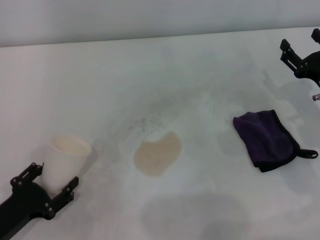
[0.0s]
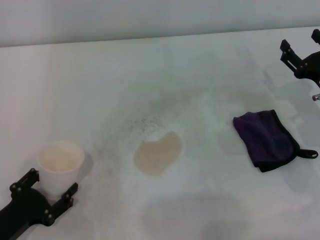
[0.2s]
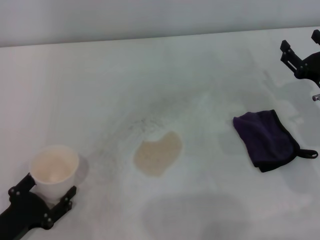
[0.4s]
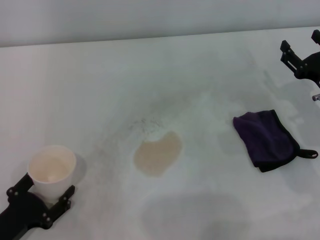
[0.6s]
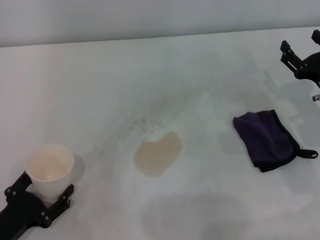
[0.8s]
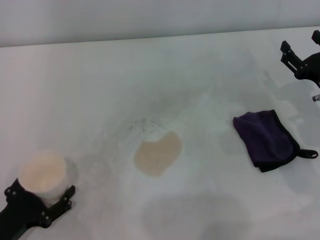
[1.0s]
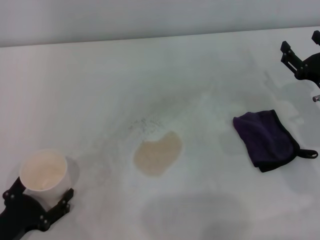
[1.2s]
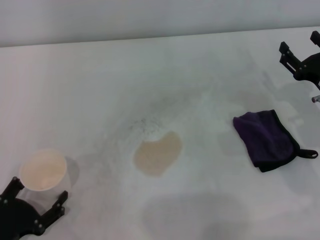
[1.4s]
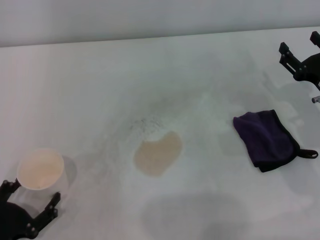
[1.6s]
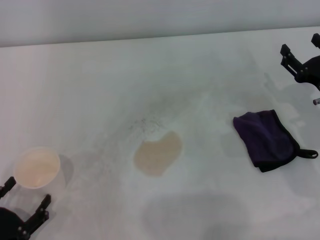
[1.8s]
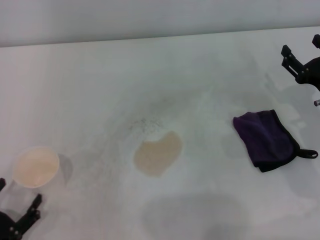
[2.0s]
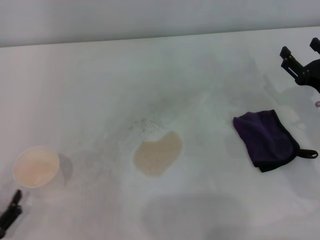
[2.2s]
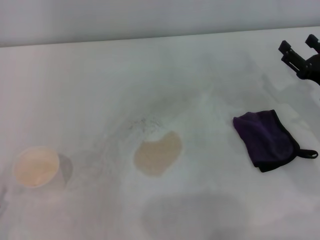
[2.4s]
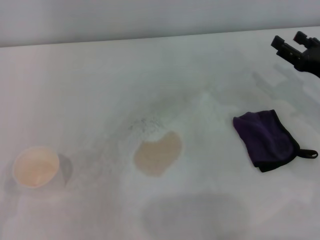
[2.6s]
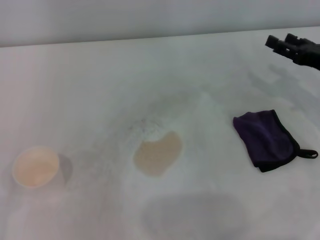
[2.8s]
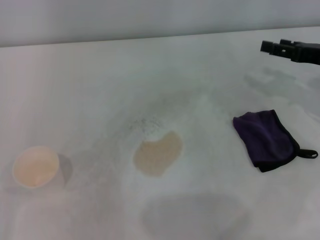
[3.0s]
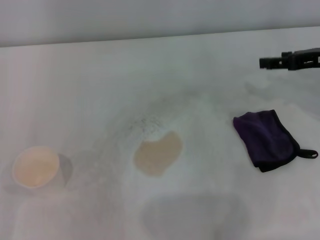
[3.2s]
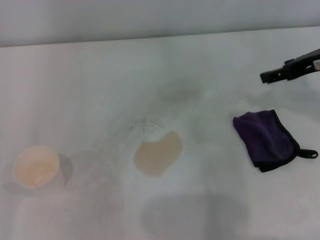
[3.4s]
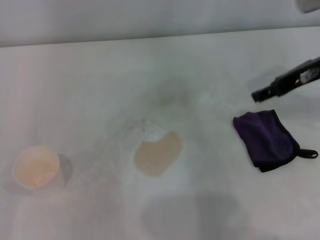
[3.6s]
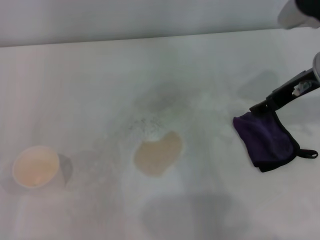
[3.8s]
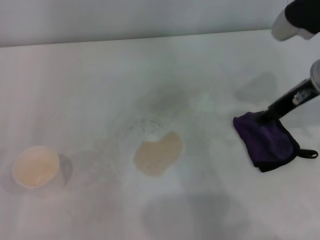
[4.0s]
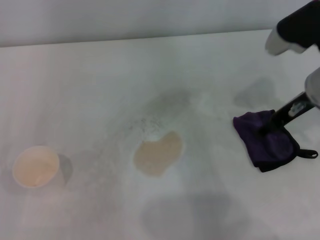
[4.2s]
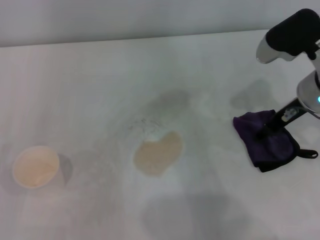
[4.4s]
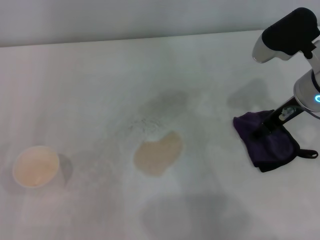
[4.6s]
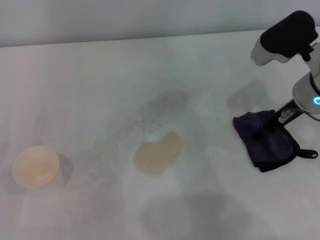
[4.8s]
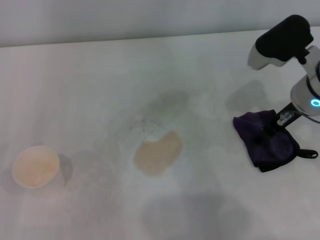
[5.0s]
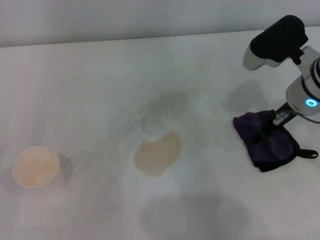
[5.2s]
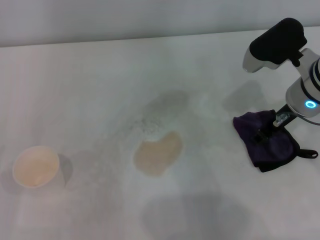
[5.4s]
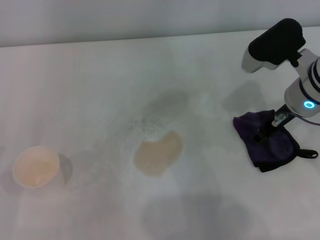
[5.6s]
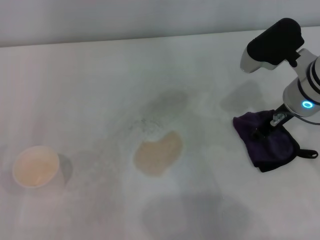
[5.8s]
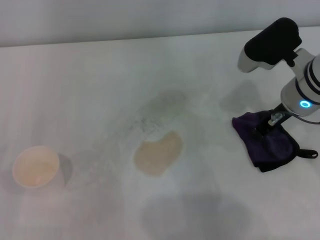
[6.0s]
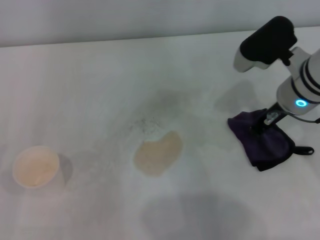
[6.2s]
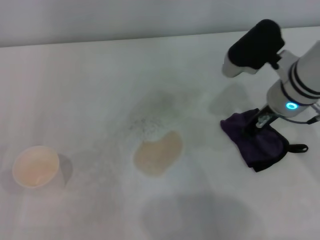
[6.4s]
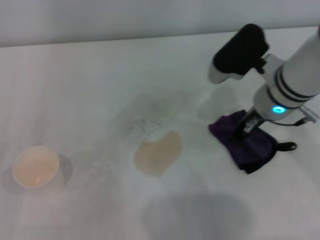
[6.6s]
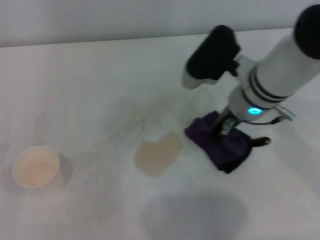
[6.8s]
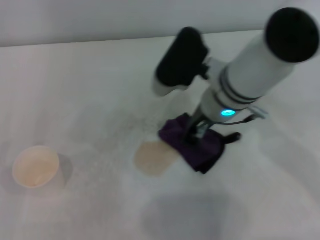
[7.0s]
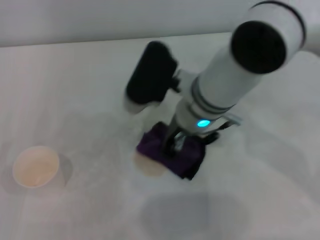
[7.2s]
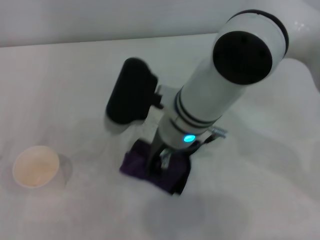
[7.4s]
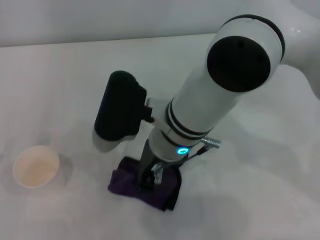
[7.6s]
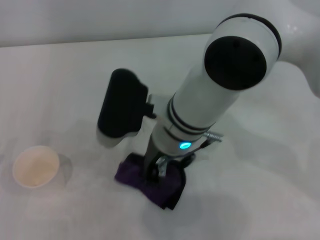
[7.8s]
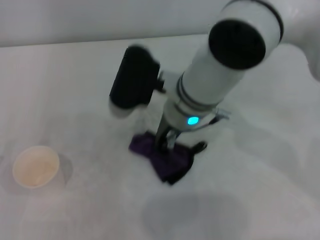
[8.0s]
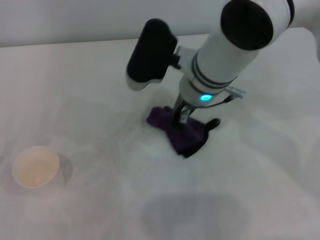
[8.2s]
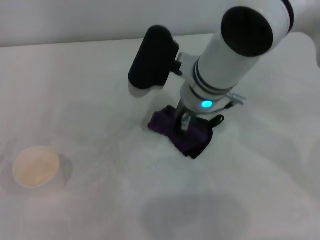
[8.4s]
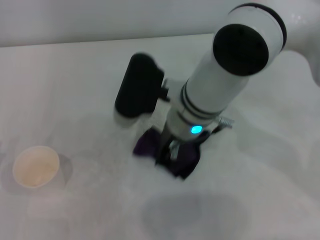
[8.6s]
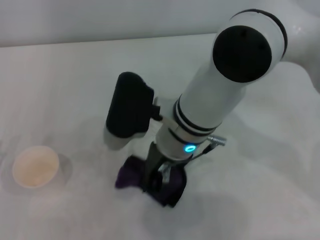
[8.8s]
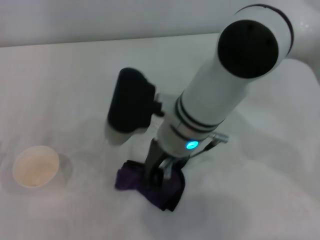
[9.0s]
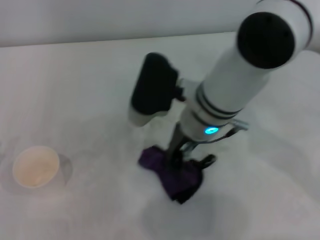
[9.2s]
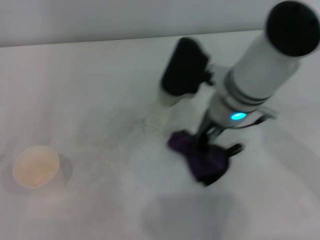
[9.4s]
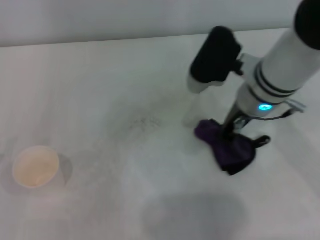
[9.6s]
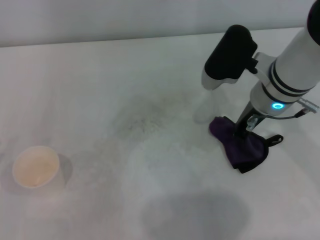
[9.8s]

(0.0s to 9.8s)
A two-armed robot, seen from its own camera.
Step, 1.2s - 6.0s: Grasp the rag with the right gripper.
Step, 6.2s - 9.8s: Wipe the stains off the table with the right gripper.
0.0s - 1.4s: The left gripper opens its fingers.
1.4s - 2.8s: The left gripper is displaced to the left by some 5 cm, while the right gripper changes place by approximately 5 cm.
2.8s - 4.2s: The right gripper heads to the left and upward, covering roughly 10 cm.
4.2s - 5.6s: The right gripper closes its fingers.
5.6s - 7.0s: The right gripper moves to the left, roughly 10 cm, and closes.
8.4s - 9.8s: The right gripper moves to the right, roughly 10 cm.

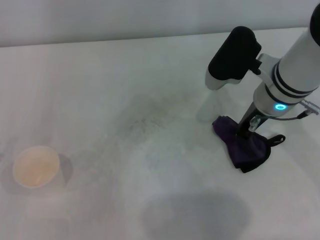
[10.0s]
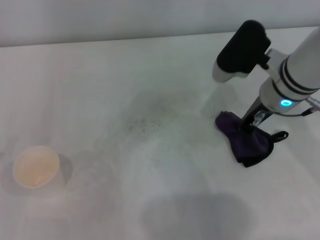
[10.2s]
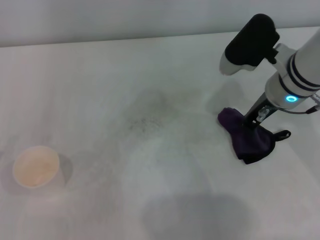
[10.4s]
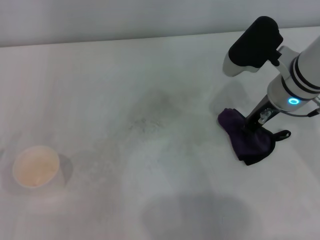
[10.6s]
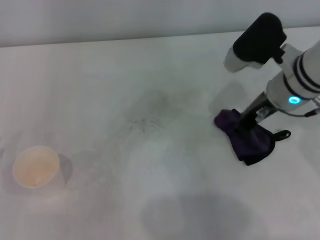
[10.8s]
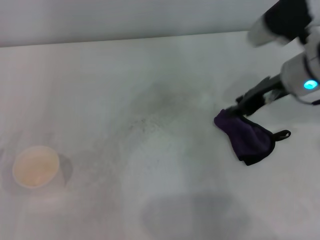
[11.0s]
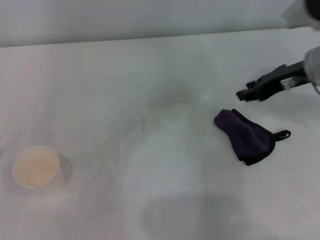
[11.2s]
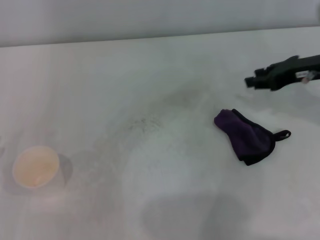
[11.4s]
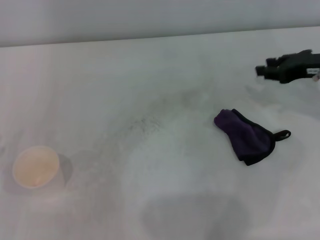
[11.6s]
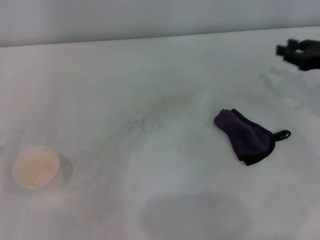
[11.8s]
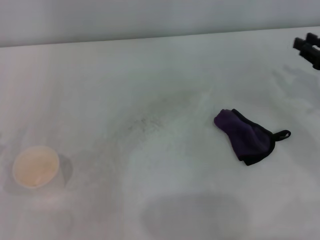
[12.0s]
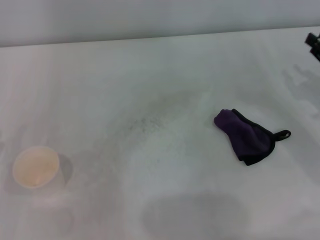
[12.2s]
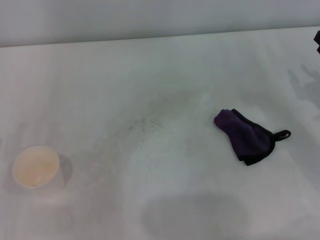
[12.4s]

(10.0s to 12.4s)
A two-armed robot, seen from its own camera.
Step, 10.0s - 10.6s: Place the rag on the table with the right gripper.
10.0s - 11.2s: The right gripper travels to the right by some 10 cm, and opens up.
11.2s - 12.4s: The right gripper travels to the right, downward and backward by roughly 15 cm.

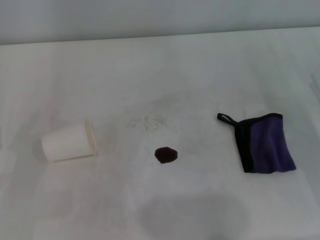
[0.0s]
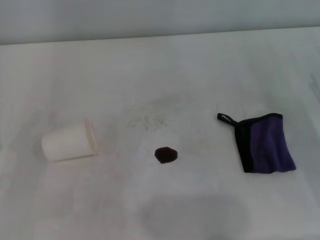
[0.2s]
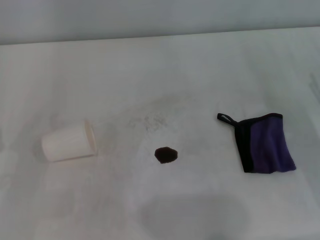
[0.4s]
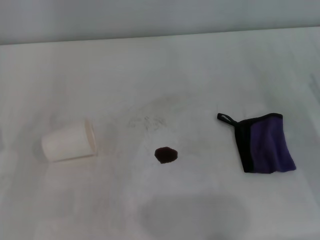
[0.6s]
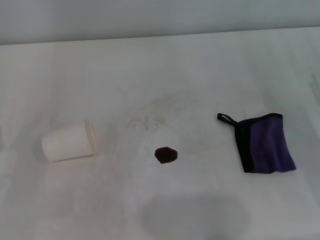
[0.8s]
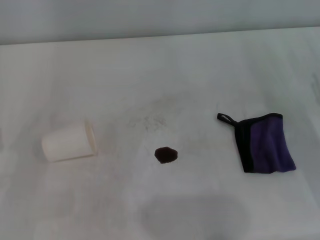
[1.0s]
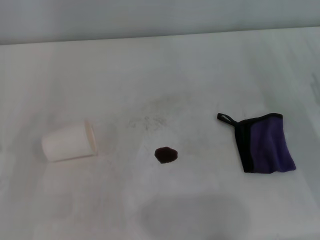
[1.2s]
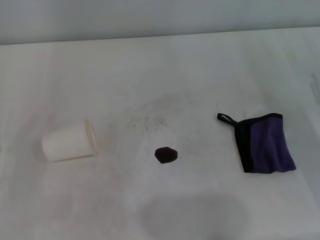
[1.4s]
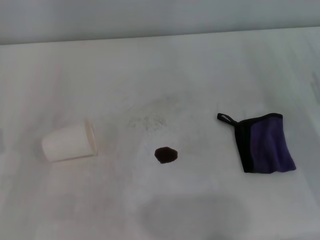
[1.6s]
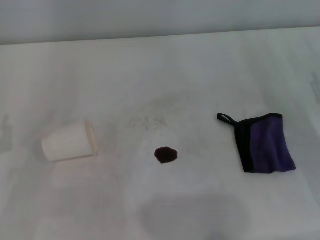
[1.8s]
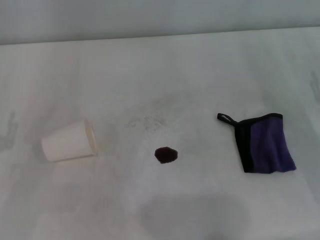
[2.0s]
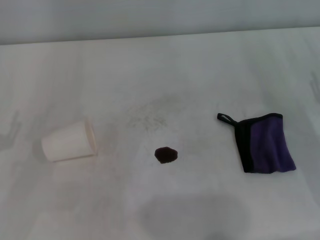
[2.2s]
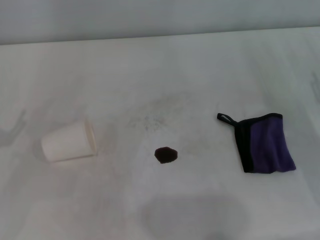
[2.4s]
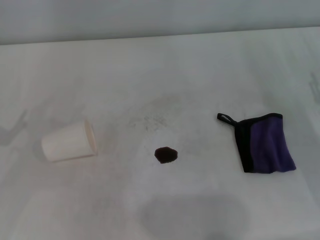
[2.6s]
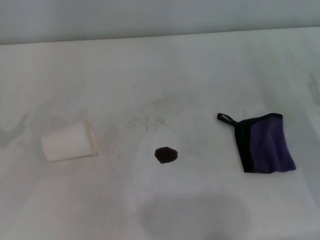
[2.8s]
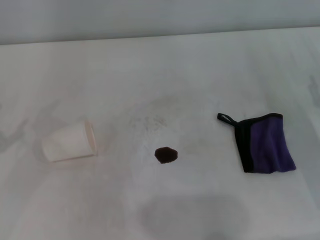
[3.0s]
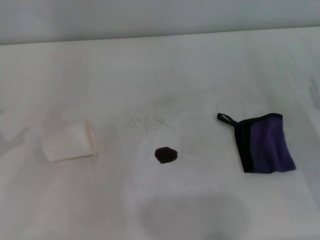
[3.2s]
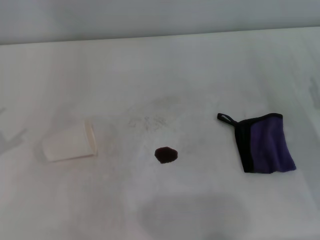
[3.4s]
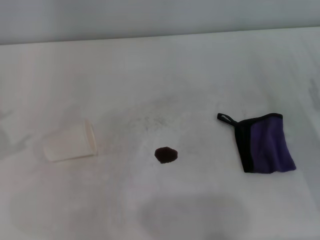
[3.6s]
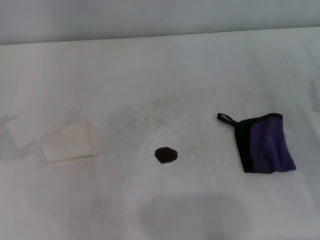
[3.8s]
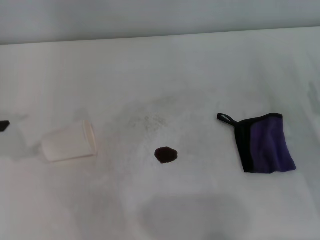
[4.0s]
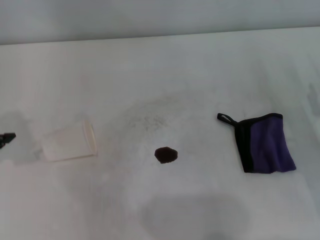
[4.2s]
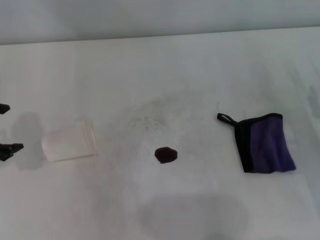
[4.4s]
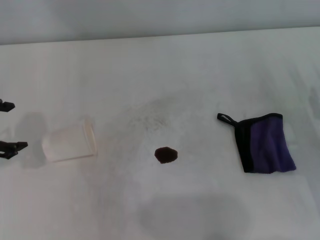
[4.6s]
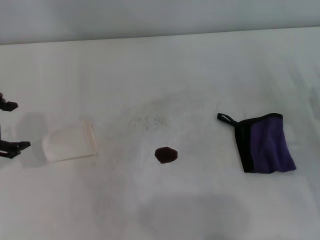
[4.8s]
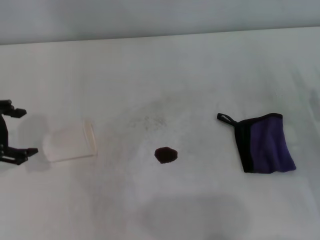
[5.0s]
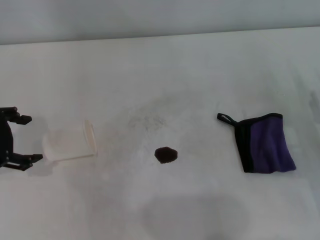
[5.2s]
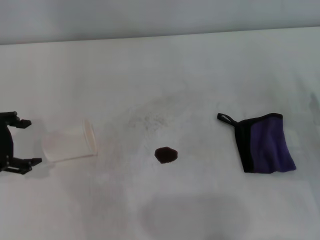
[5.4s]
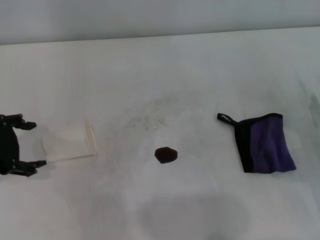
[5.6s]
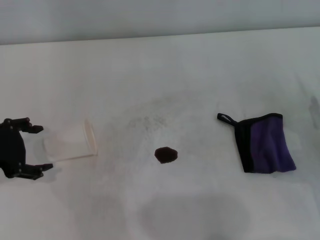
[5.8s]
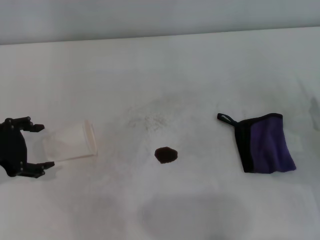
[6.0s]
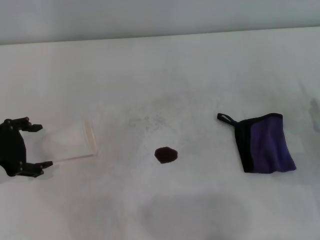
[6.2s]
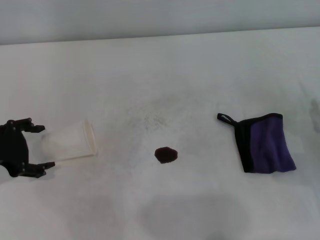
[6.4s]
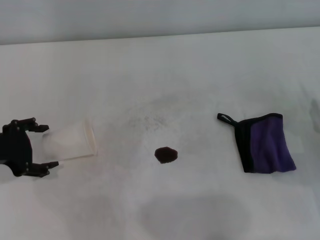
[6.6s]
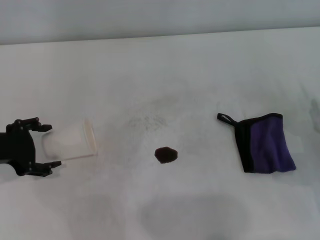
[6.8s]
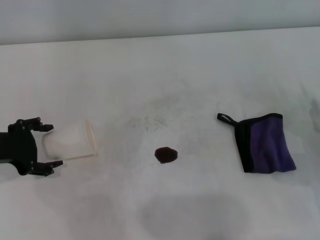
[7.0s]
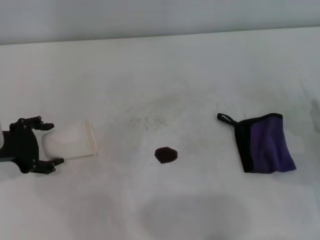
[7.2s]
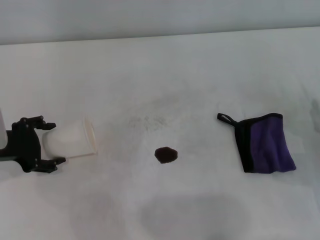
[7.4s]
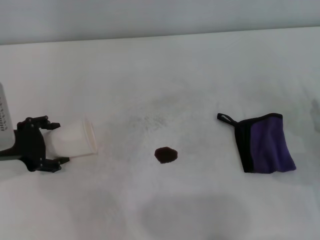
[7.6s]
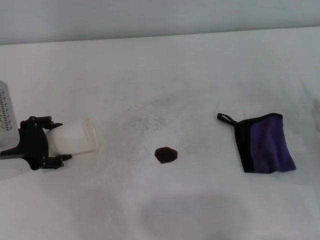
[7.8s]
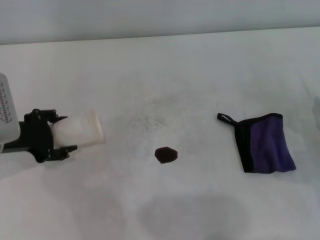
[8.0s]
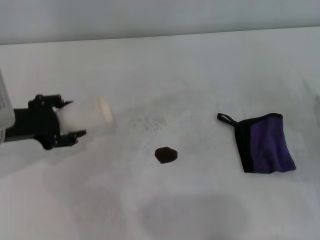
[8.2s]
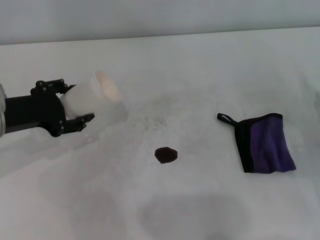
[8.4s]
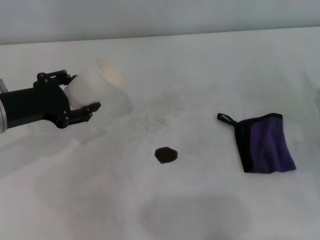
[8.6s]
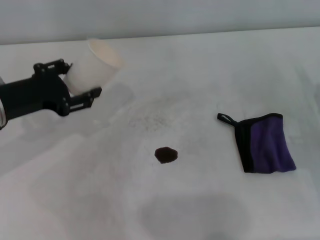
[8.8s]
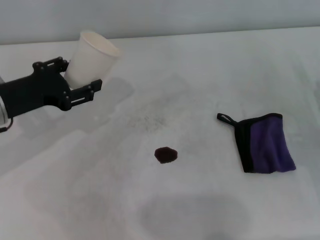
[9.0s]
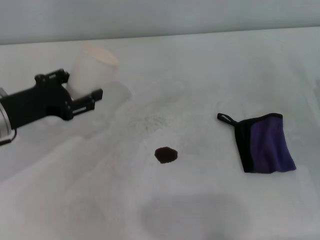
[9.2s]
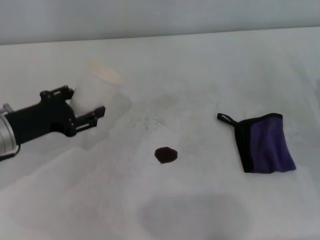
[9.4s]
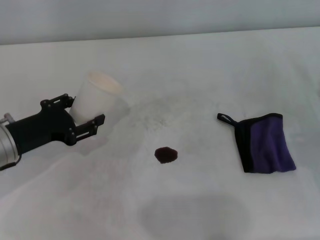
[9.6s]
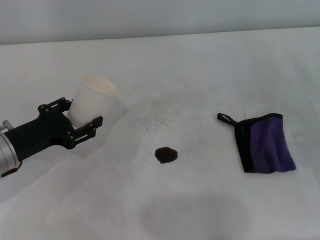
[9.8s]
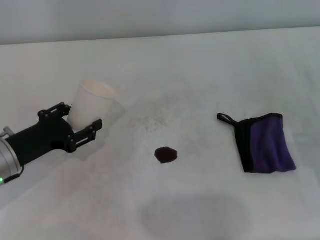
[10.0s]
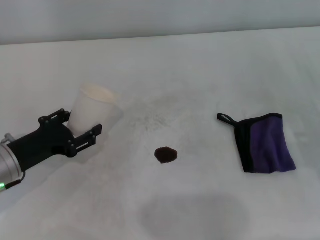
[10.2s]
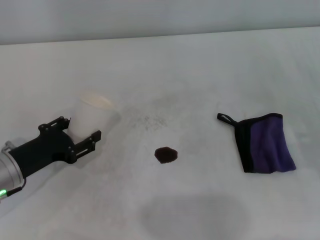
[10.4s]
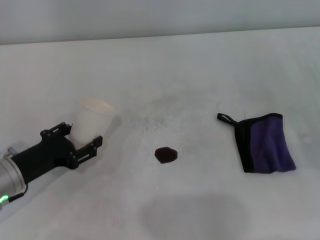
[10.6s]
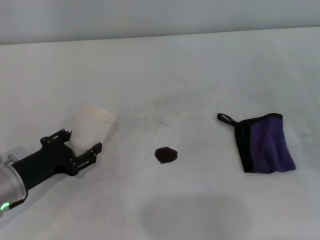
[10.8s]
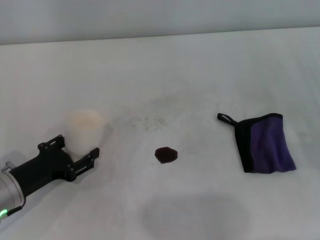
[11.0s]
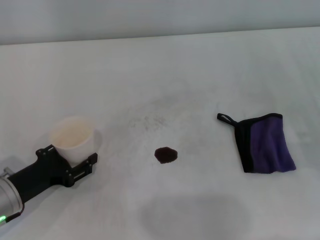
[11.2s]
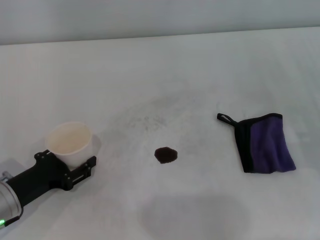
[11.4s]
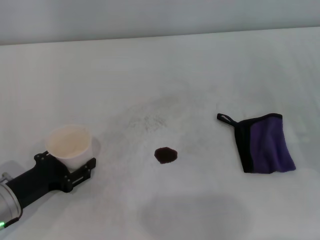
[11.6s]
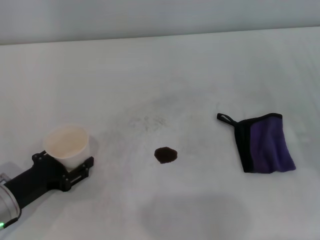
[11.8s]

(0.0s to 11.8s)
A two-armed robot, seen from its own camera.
Step, 0.0s - 7.6s: Grasp the paper cup with the left gripper.
4.4s - 6.0s: The left gripper is displaced downward by approximately 5 cm.
6.0s - 7.4s: The grippers make only small movements.
8.8s - 10.4s: The left gripper moves downward, about 10 cm.
10.4s - 11.8s: The left gripper shifts by some 5 cm.
